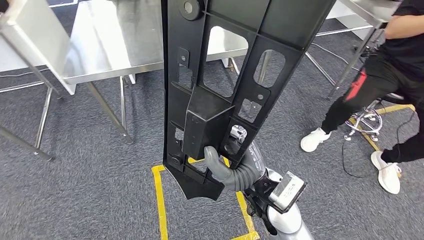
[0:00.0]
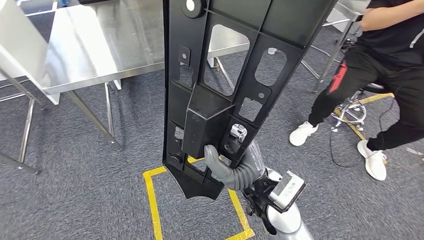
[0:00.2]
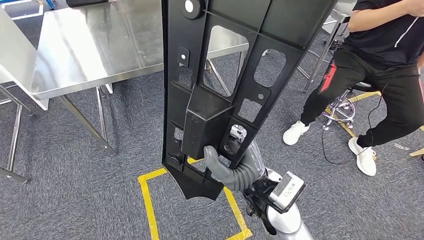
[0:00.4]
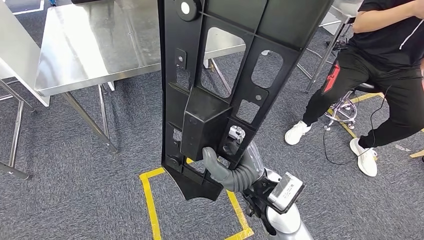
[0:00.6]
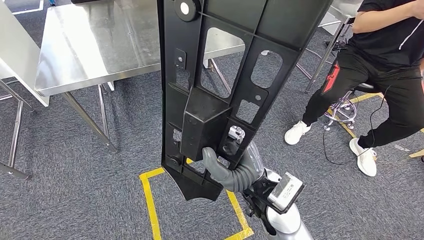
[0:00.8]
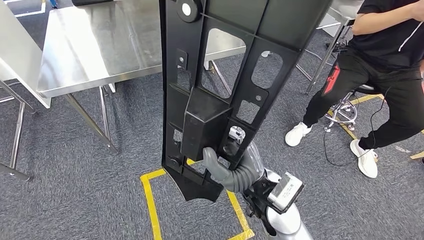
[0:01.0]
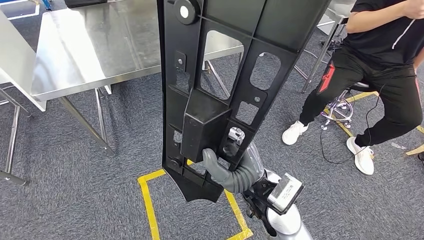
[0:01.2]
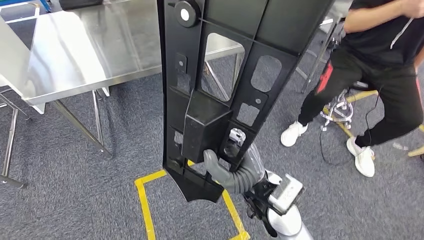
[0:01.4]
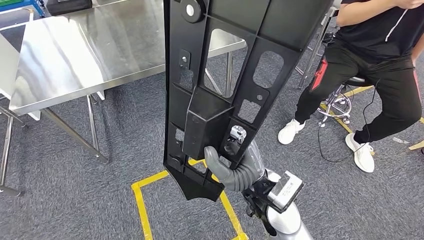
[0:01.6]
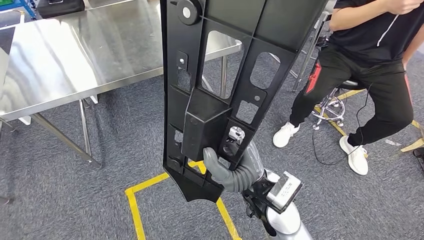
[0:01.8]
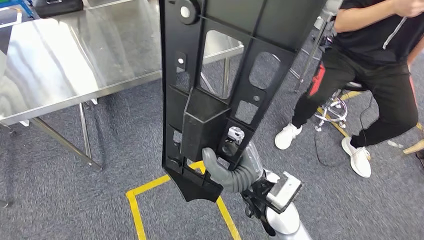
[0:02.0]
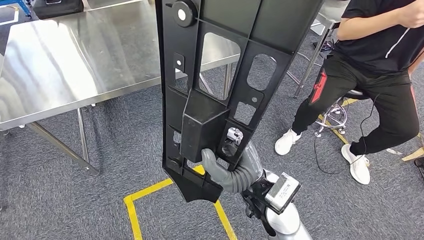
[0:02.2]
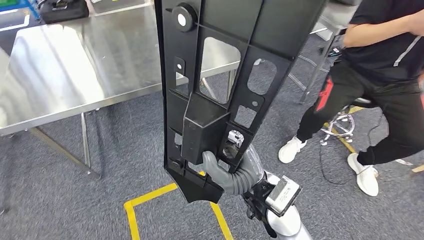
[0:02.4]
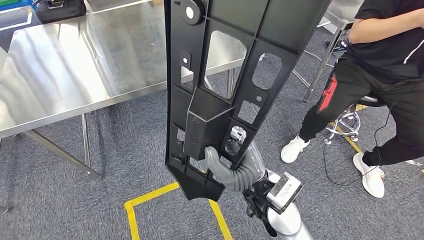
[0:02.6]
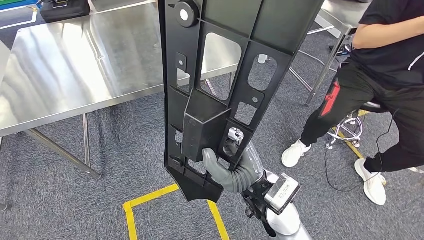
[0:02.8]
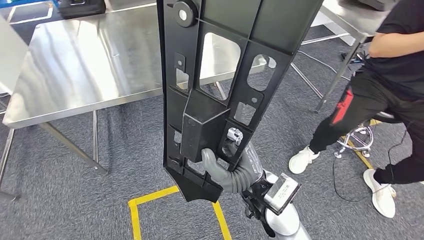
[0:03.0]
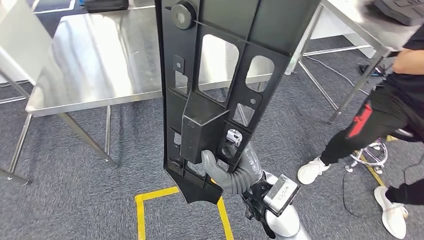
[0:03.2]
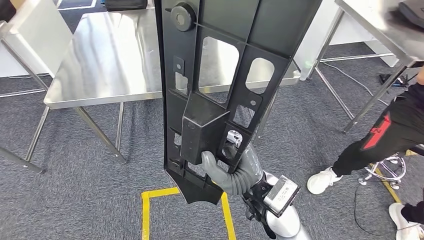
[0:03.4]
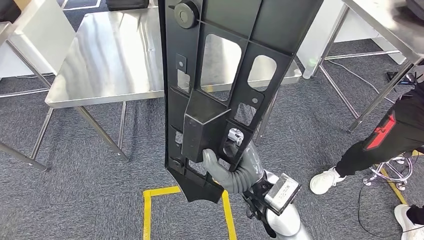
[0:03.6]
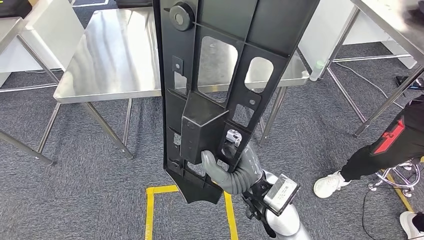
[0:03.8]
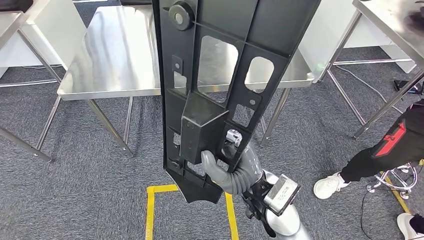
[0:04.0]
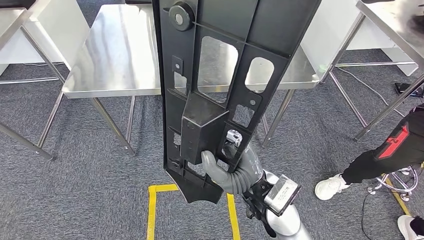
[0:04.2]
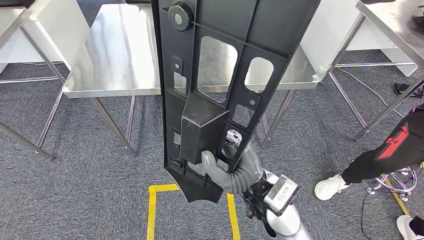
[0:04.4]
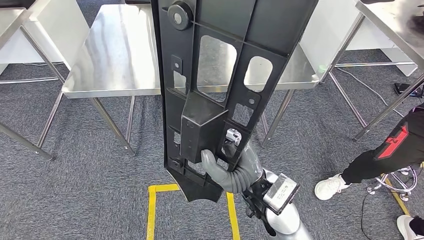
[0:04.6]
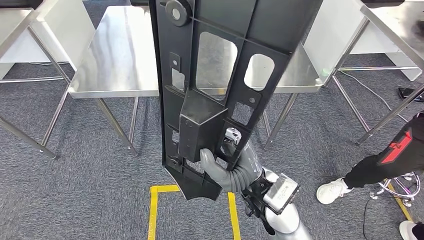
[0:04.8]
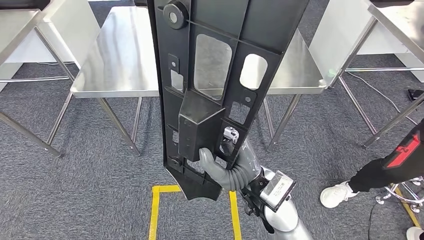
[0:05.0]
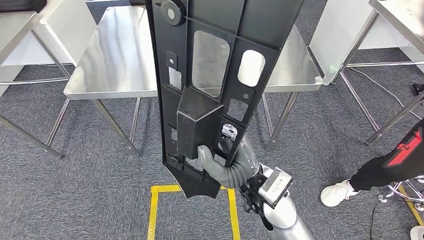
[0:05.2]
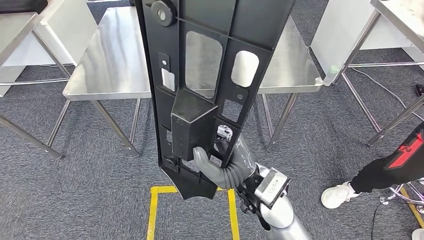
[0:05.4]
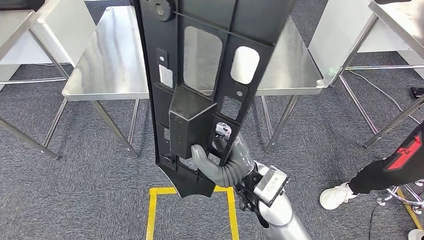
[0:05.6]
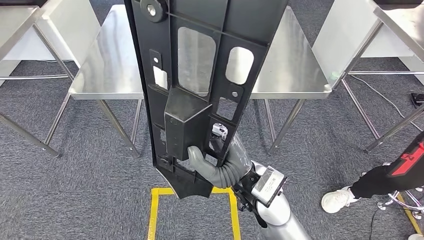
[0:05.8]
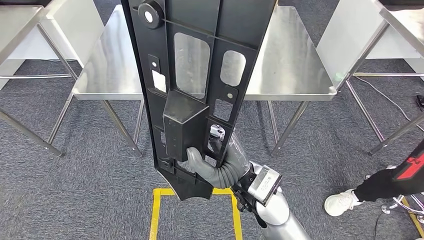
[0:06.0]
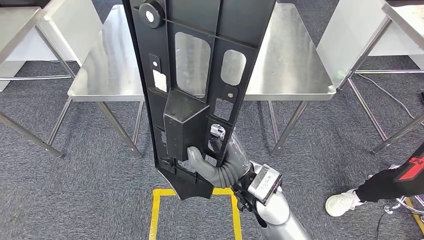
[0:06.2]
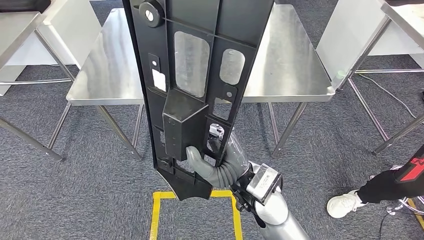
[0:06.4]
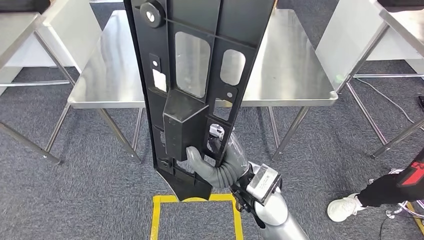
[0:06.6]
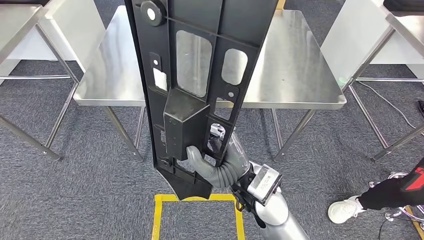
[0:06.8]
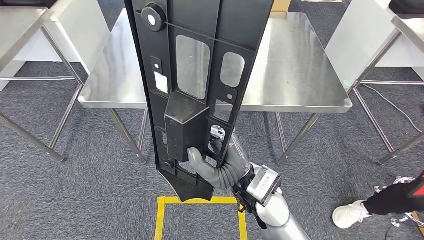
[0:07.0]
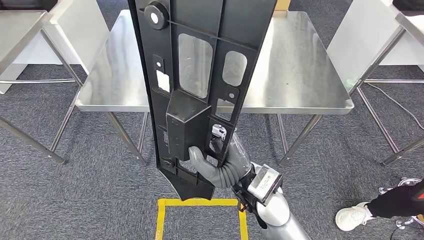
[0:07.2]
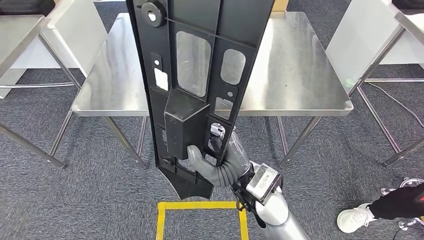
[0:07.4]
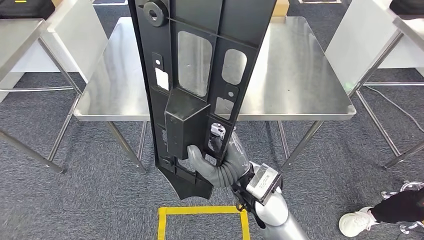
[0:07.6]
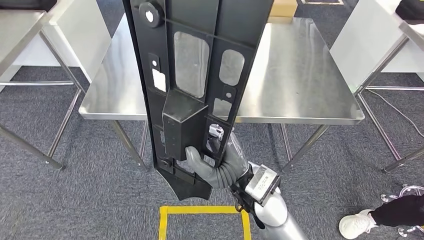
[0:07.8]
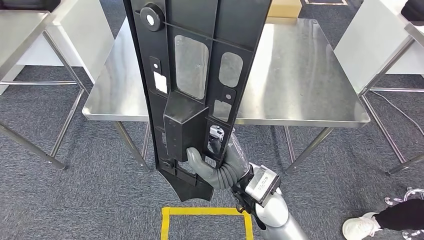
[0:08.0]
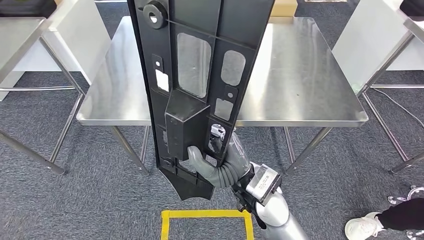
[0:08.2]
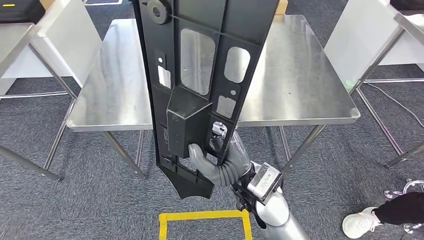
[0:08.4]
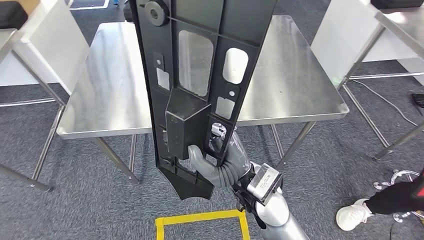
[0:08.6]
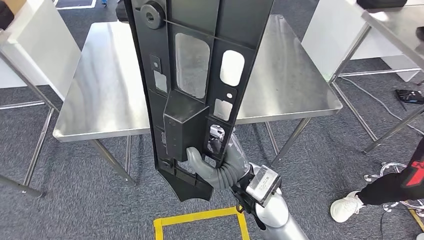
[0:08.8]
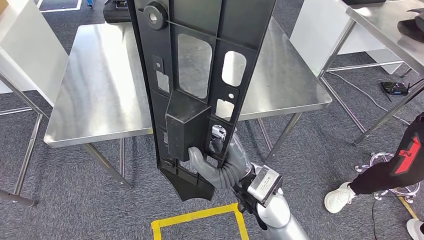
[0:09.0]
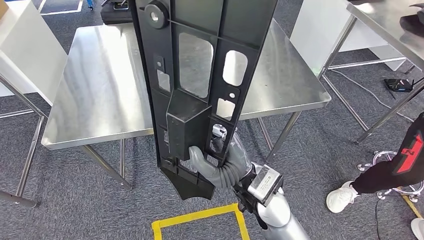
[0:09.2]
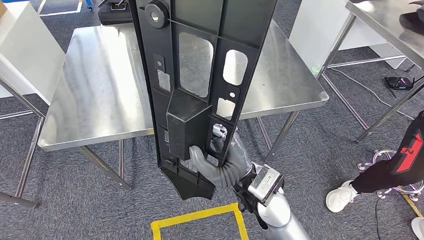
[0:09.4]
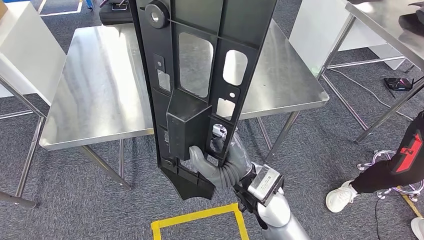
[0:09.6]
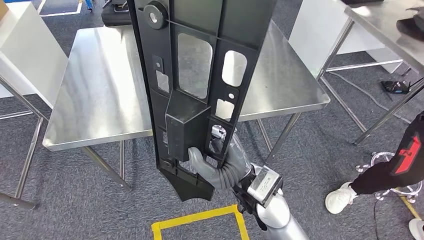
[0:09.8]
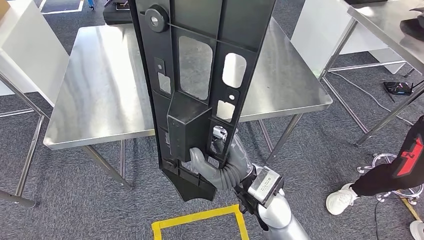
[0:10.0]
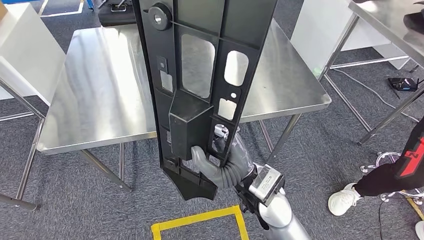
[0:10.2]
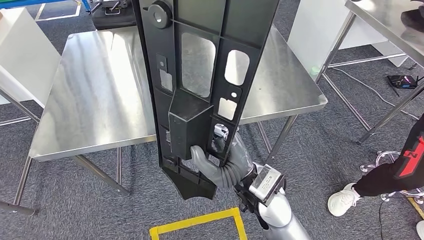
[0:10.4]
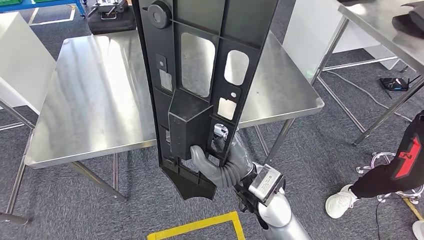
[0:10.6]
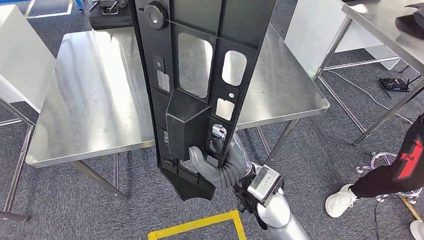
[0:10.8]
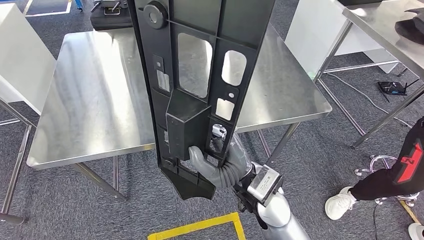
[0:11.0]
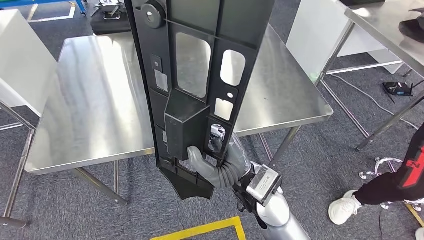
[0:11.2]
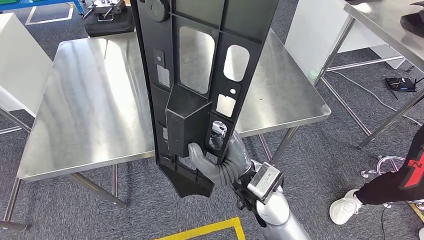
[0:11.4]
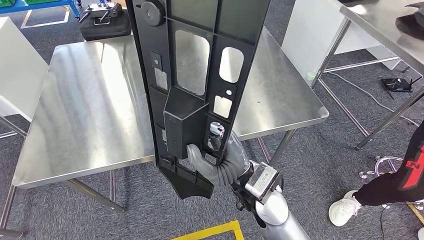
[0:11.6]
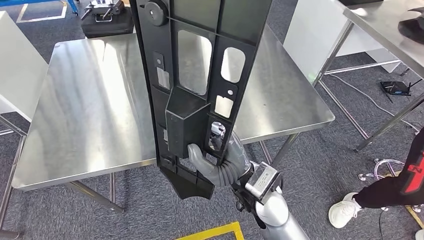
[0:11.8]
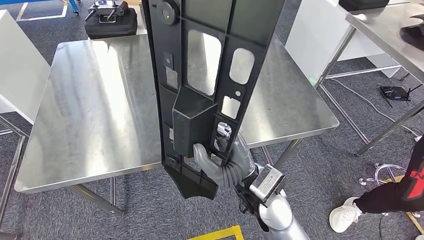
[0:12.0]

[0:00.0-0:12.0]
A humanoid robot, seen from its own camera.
Step, 0:00.0 to 0:03.4: Move the large material to the workbench.

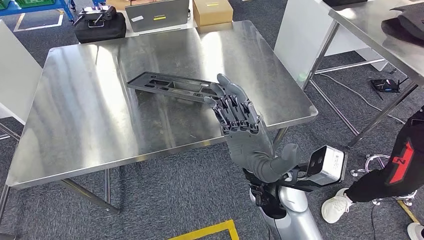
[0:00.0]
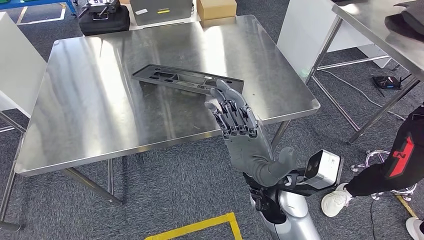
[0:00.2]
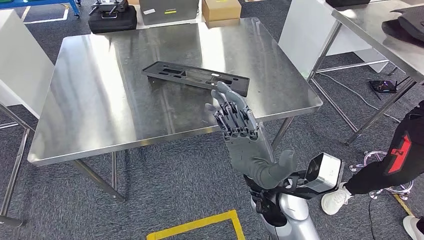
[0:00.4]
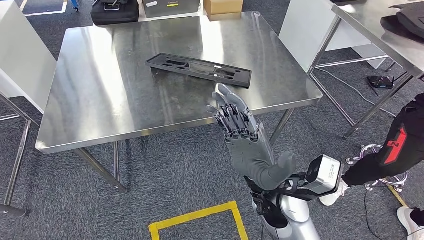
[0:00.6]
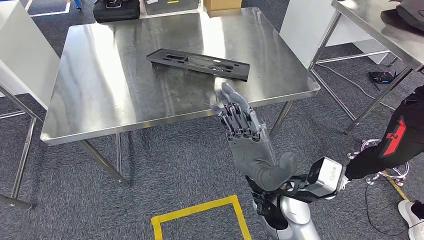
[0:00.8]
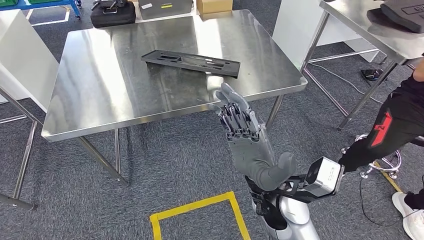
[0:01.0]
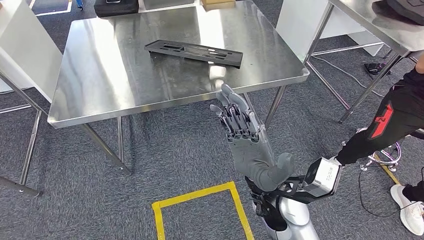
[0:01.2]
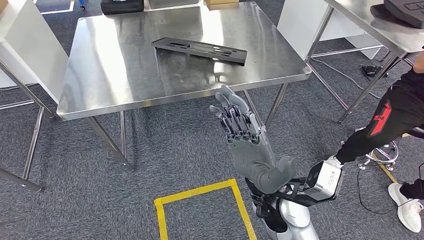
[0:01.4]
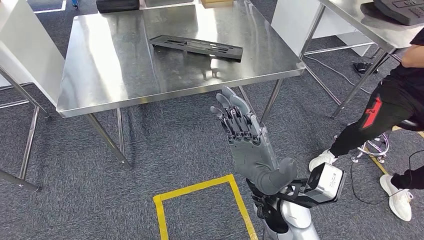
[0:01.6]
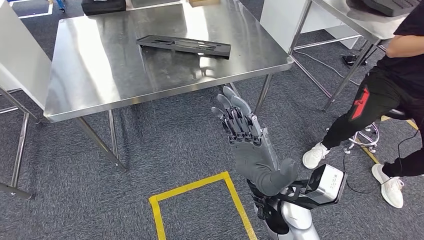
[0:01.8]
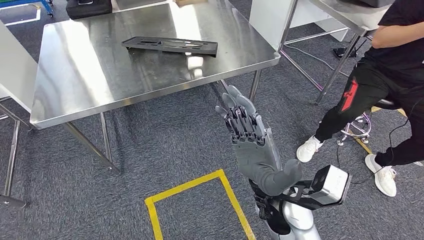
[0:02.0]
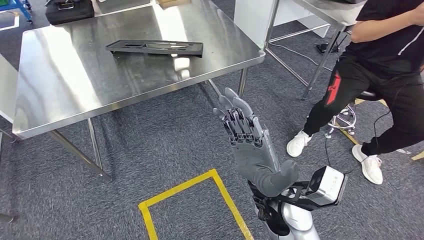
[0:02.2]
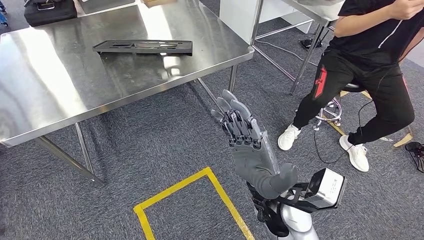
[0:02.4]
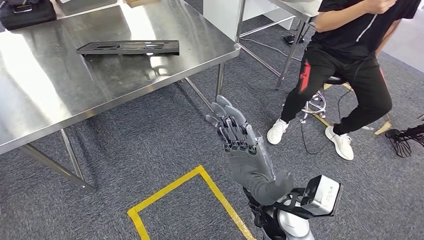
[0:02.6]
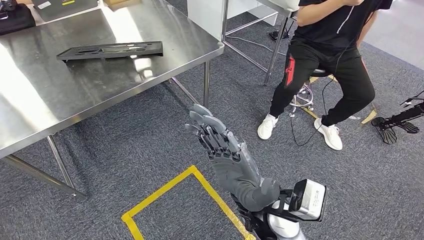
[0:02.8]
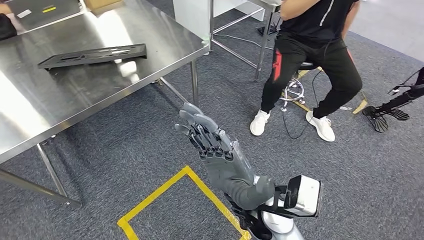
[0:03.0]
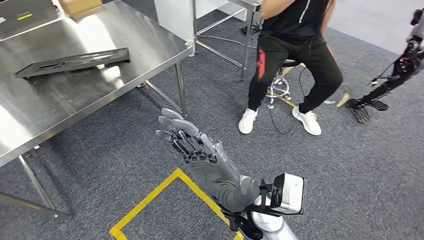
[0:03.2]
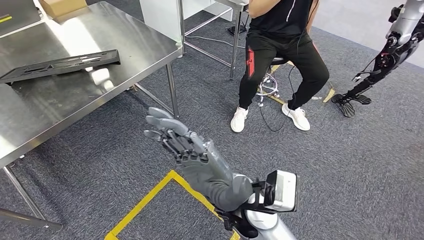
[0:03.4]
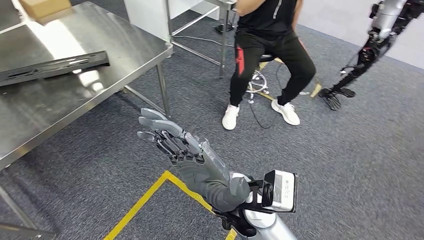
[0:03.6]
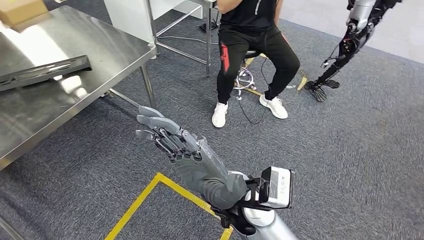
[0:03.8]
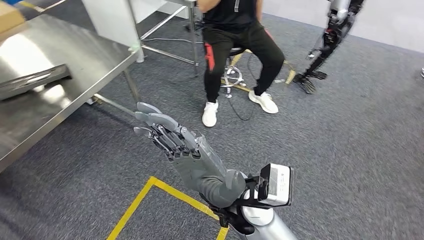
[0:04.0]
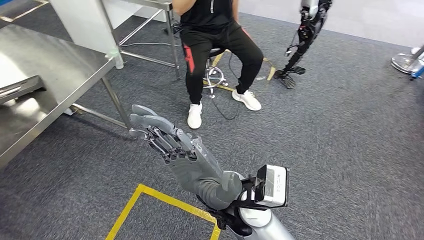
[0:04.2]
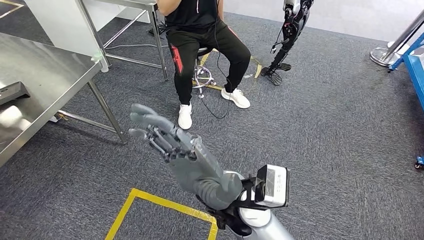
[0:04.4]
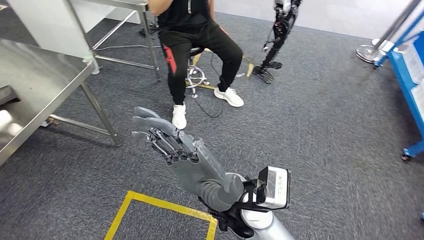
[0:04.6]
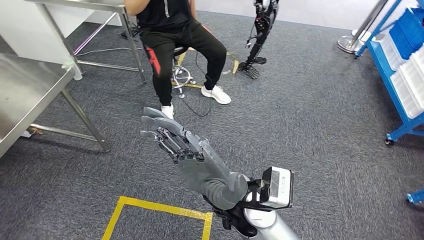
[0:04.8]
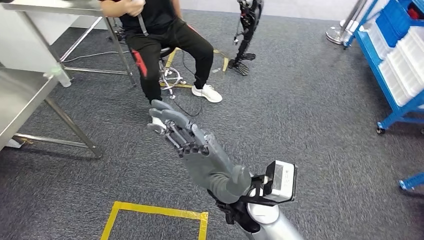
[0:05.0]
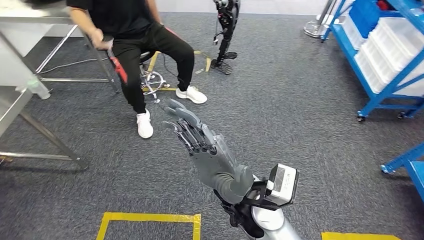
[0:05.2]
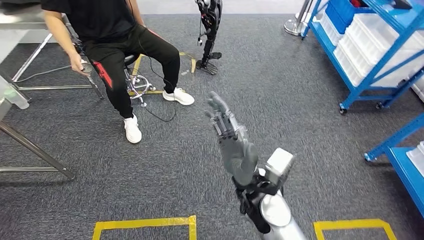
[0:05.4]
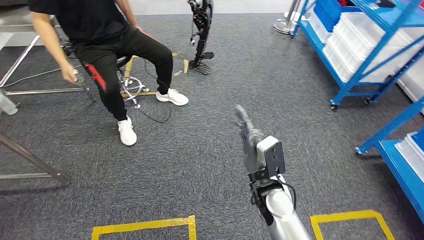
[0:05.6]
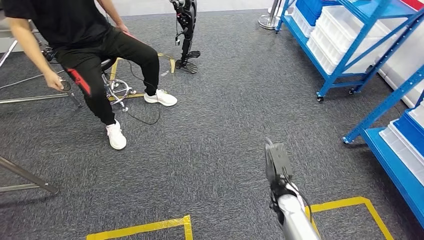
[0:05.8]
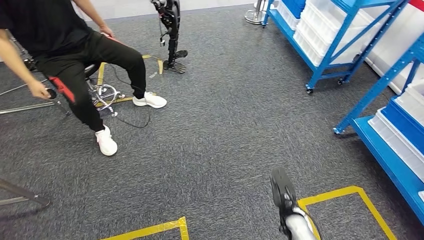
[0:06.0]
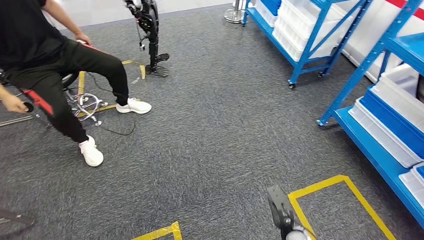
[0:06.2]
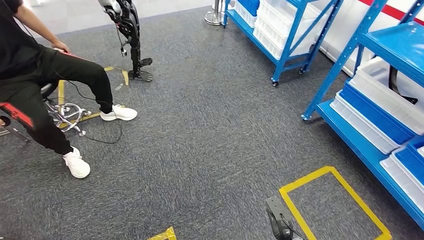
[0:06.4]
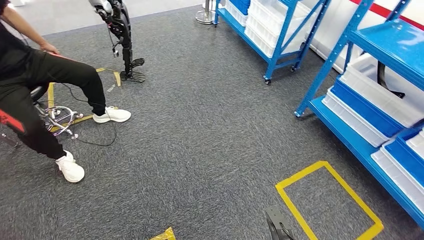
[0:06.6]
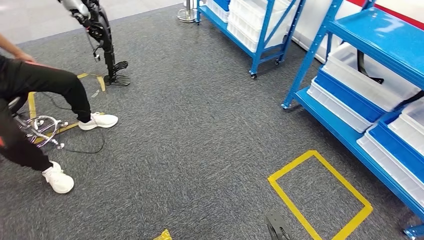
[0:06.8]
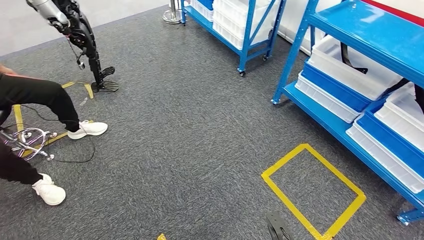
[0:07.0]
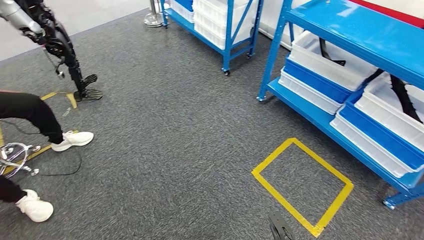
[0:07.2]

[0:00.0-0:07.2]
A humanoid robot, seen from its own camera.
Step, 0:00.0 to 0:03.6: Insert the large material into the corresponding slot on the workbench.
